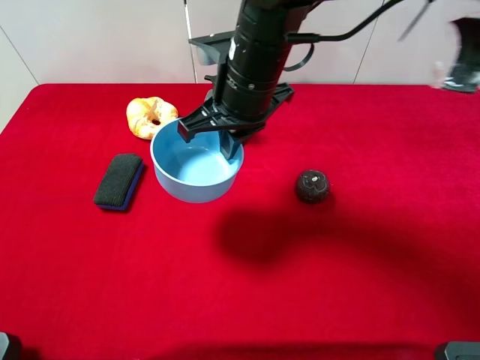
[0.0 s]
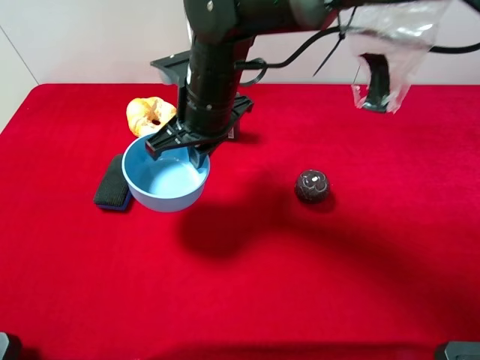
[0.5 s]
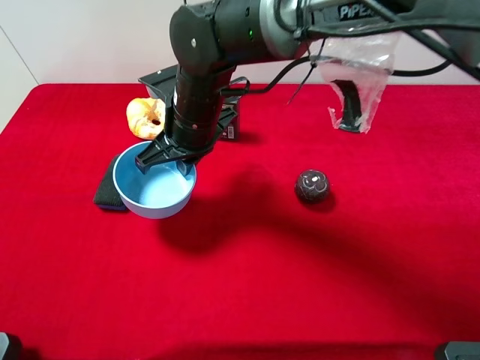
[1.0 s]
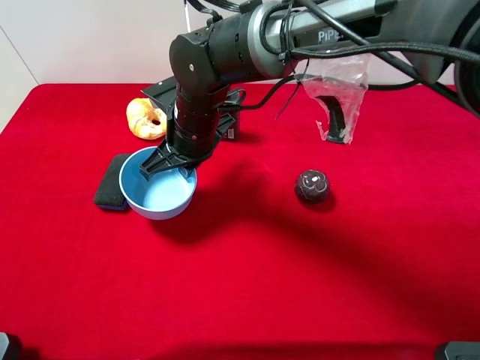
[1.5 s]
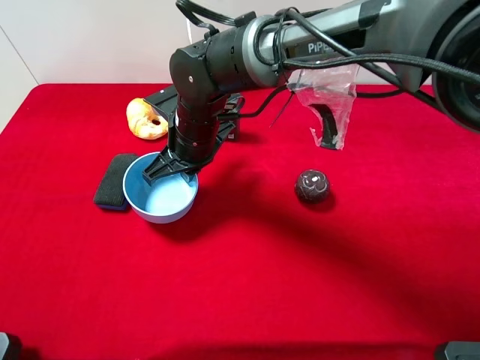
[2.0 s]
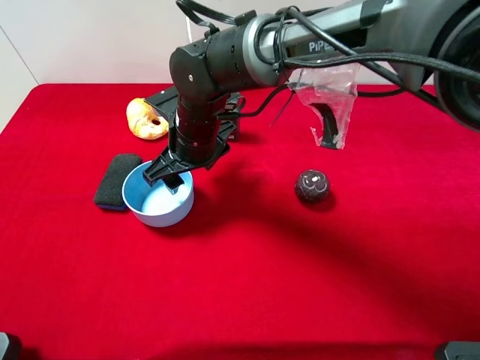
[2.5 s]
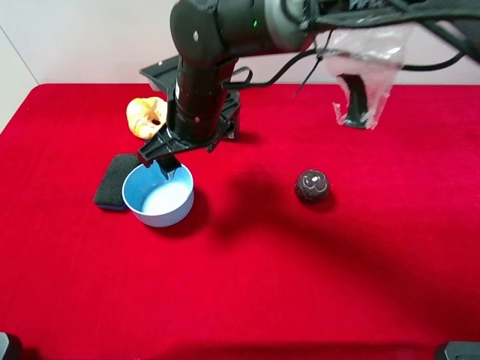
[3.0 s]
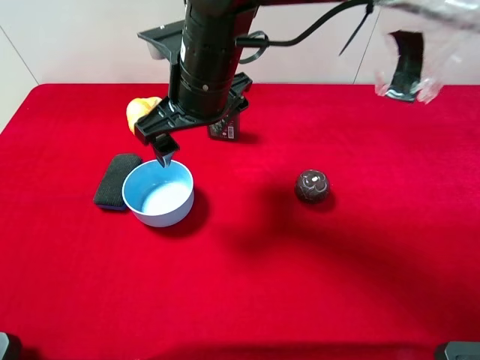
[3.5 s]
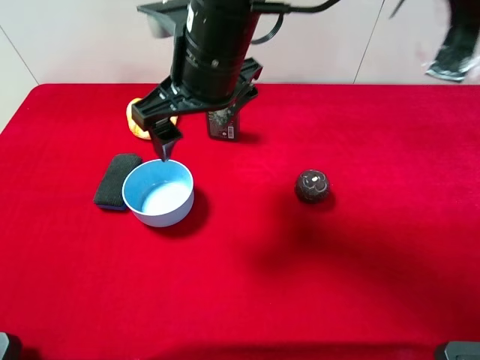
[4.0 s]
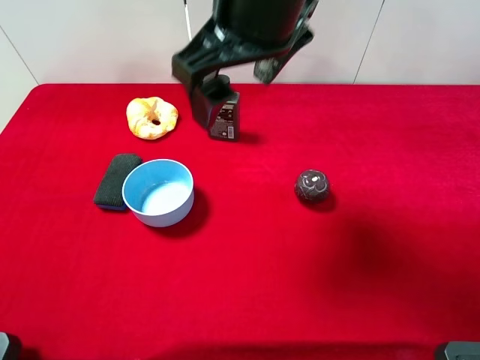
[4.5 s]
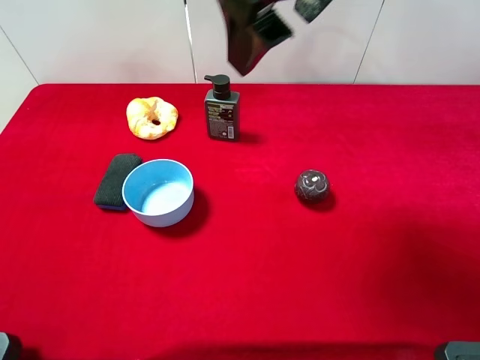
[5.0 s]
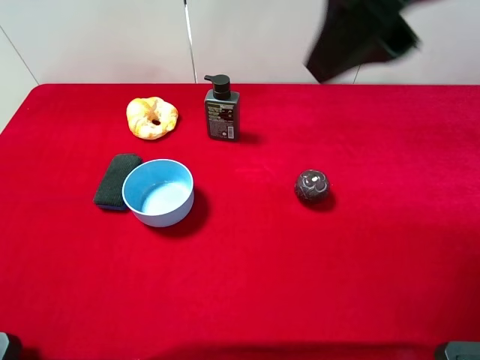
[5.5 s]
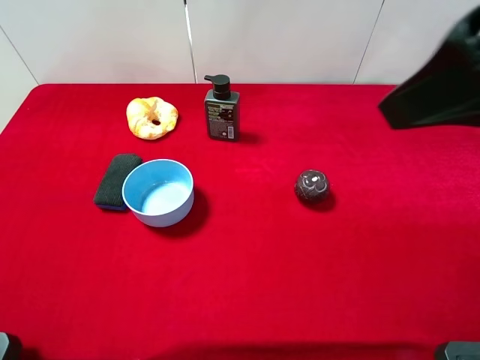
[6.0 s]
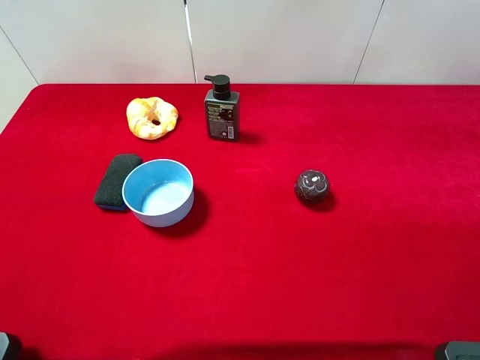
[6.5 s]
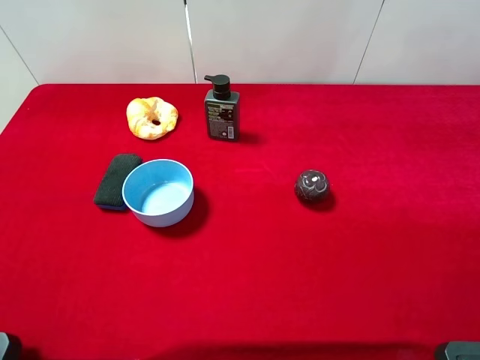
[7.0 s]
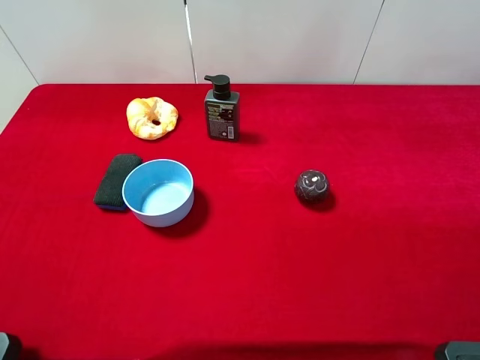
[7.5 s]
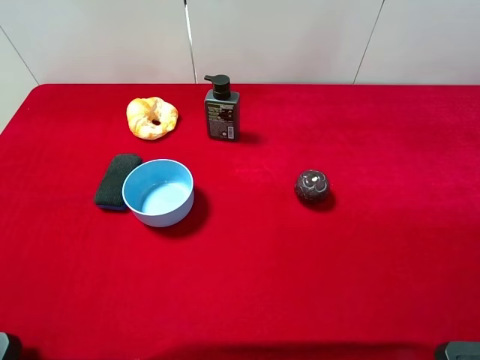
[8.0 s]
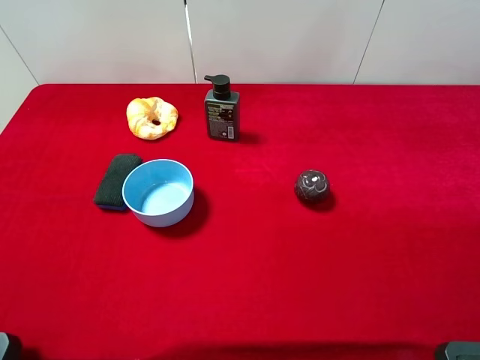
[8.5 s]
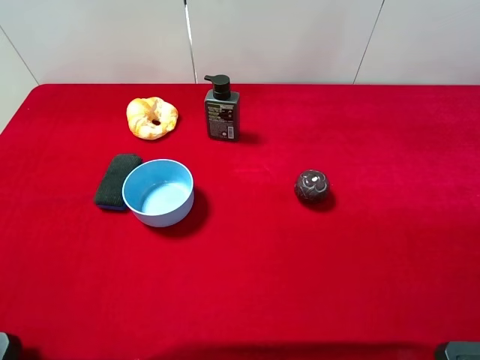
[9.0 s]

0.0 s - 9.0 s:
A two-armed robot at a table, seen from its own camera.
Task of the whole recording: the gripper move the object.
Step, 0.0 s - 3.0 s: Place the blue bowl on the table with the right gripper.
0.0 s - 2.0 s: The right gripper is displaced downward and to the left by about 10 cm.
2.0 s - 4.5 s: The right gripper goes approximately 20 cm upward, and opens its fingers.
4.5 s - 7.0 s: The right gripper travels to the right and backward by some 30 cm.

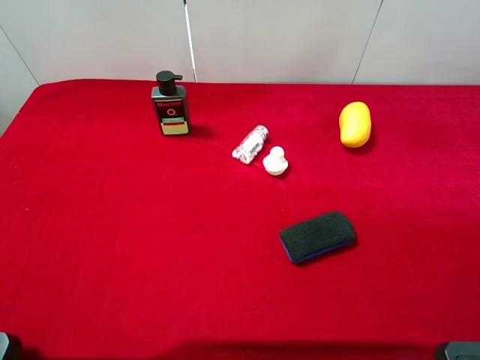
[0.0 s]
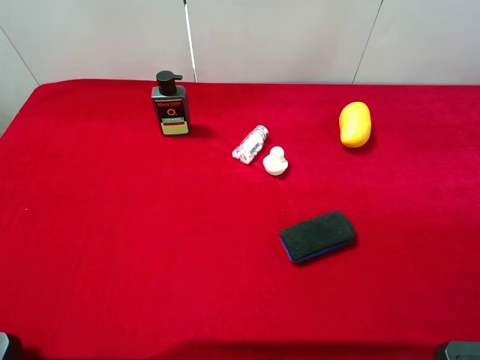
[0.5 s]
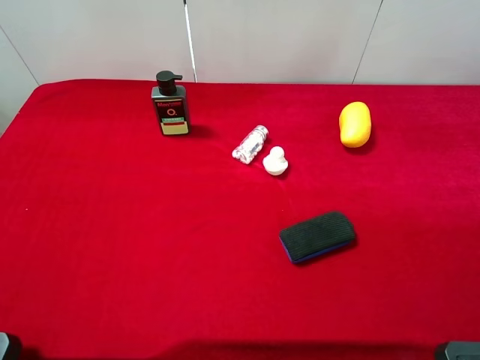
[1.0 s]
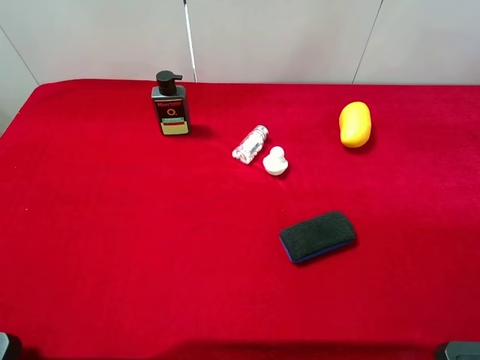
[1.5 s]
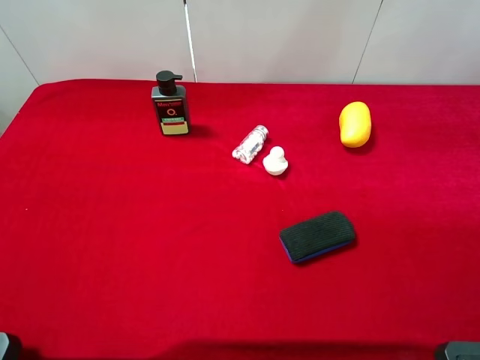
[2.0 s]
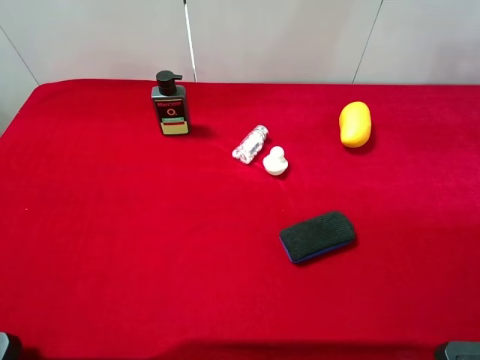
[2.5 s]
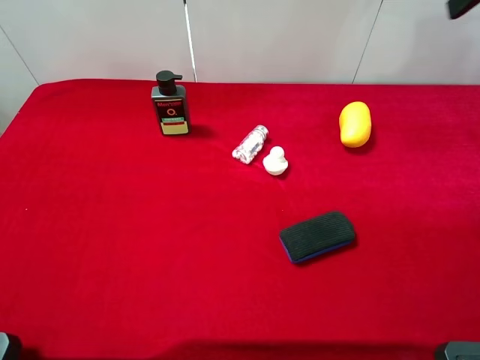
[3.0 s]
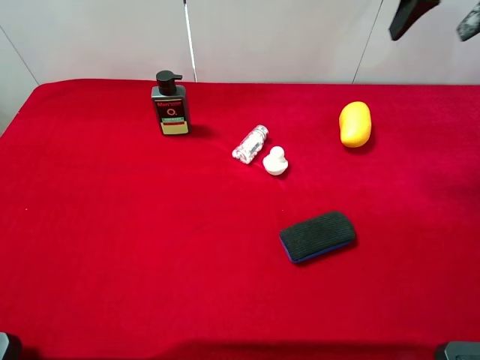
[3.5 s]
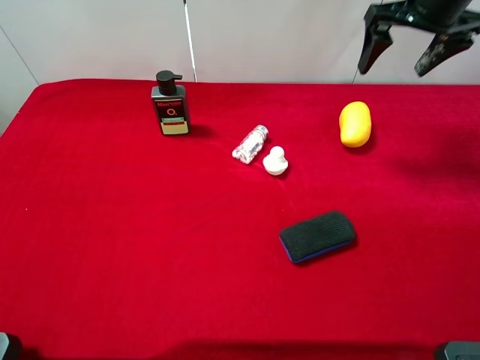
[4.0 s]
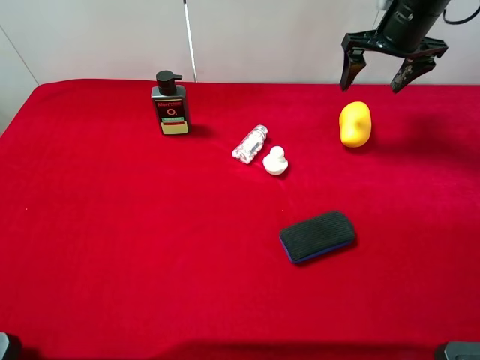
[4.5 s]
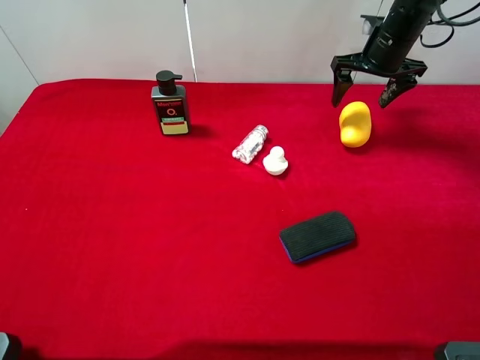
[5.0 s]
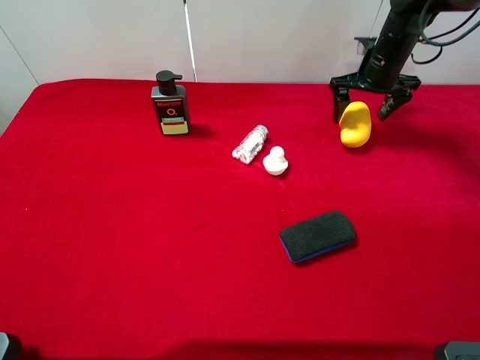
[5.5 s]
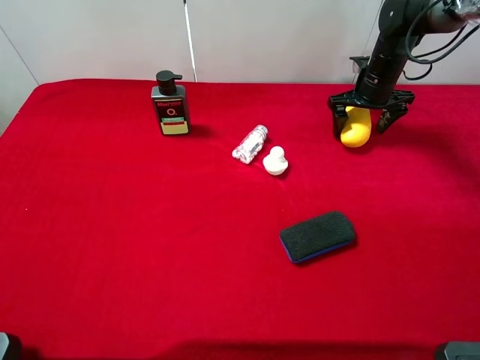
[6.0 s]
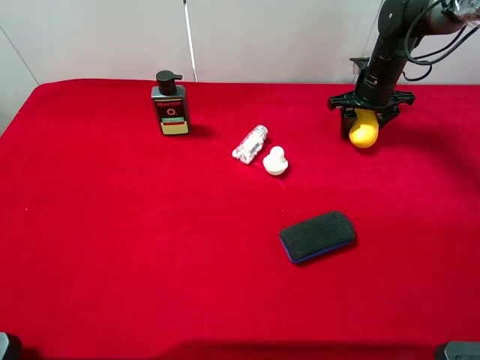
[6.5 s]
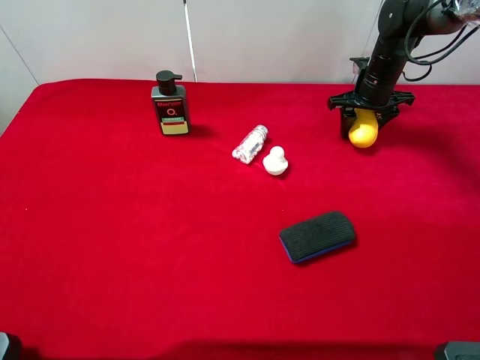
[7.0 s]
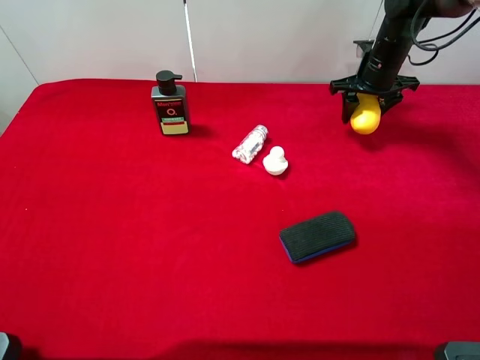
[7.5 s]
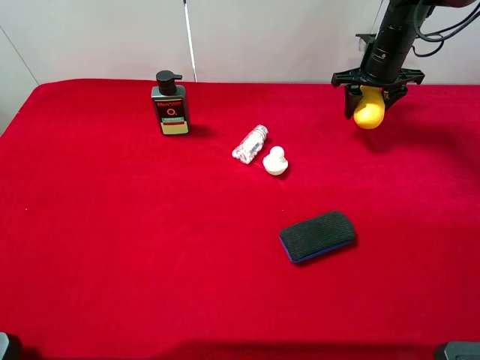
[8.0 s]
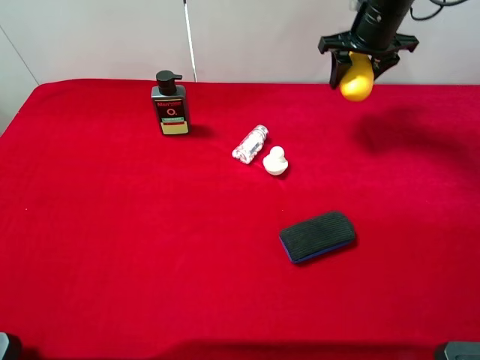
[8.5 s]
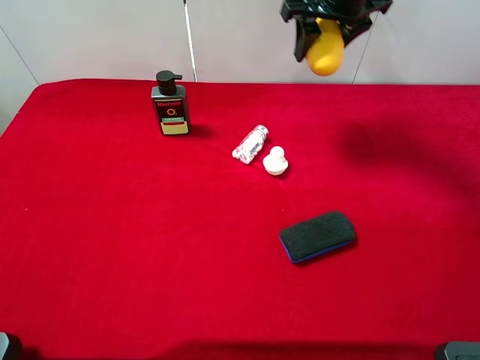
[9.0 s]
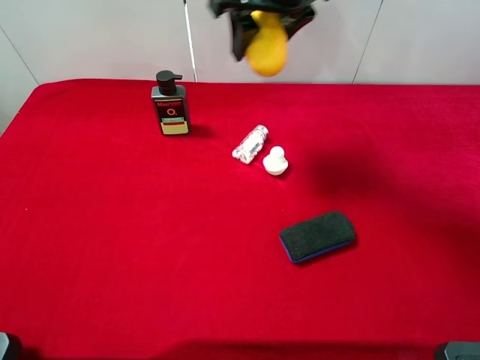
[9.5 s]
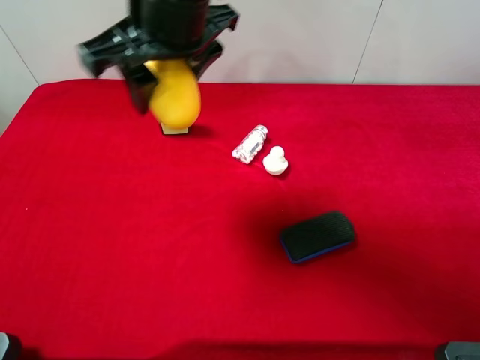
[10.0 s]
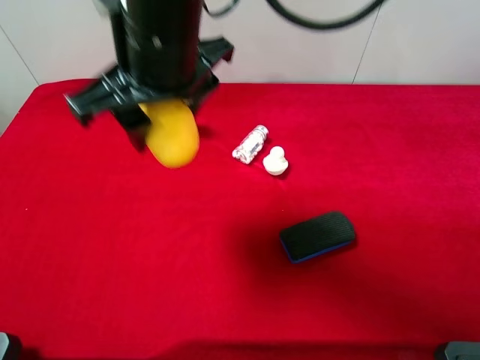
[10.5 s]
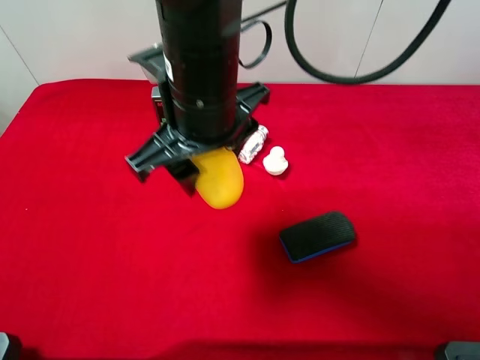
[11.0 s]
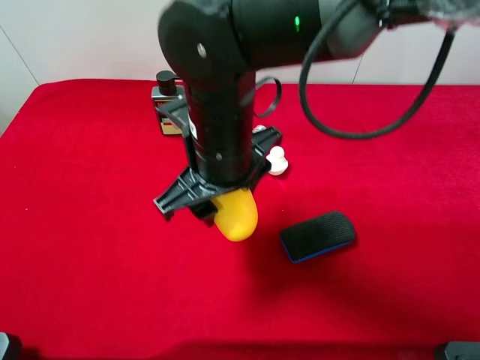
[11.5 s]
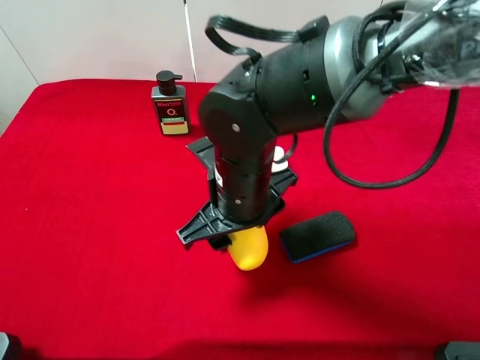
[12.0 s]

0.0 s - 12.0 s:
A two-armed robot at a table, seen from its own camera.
Task of the whole recording: the gripper move the object.
Step, 0.0 s - 6.5 s: Grasp the mango with the right gripper.
2.0 s - 4.0 s: The right gripper travels forward by about 25 cm.
4.0 s - 6.0 s: The right gripper is displaced downward and forward by some 20 cm.
6.0 s - 8.0 s: The right gripper closes up.
8.0 s - 10.0 s: The right gripper moves to the left, backward and upward, roughly 40 cm.
10.0 s - 12.0 s: The right gripper heads downward, covering approximately 15 cm.

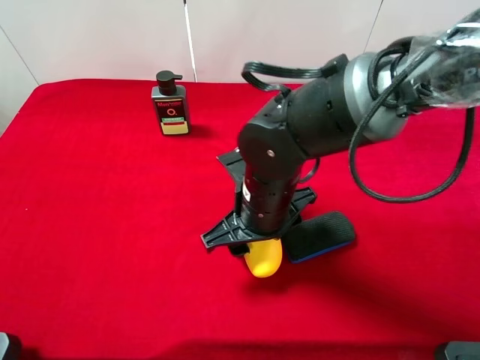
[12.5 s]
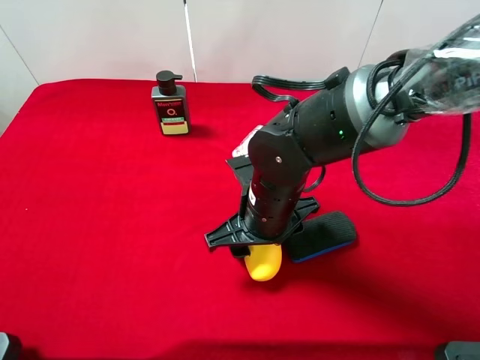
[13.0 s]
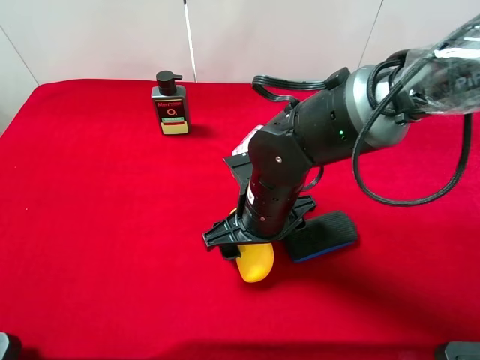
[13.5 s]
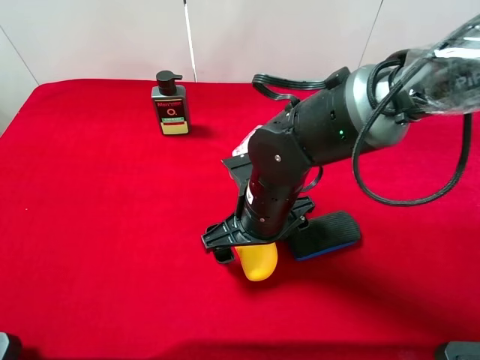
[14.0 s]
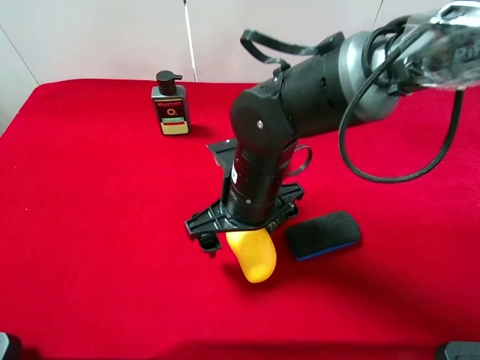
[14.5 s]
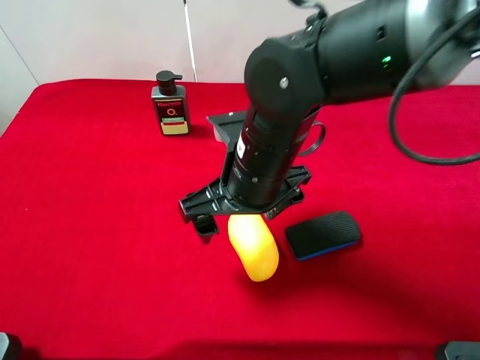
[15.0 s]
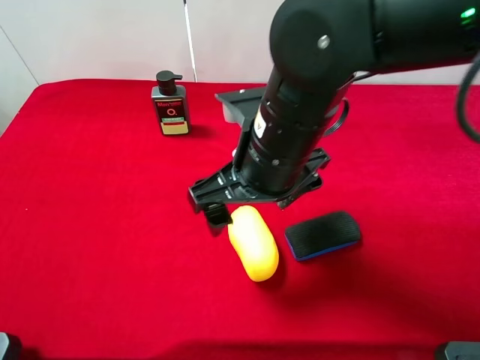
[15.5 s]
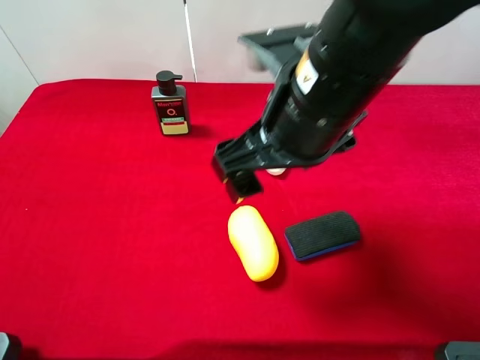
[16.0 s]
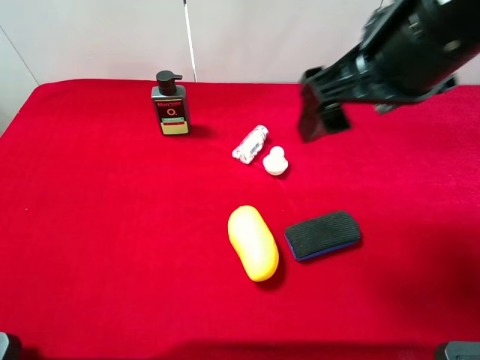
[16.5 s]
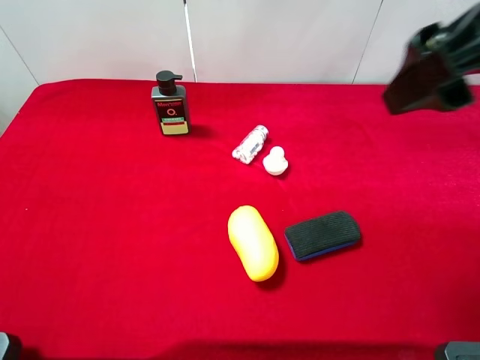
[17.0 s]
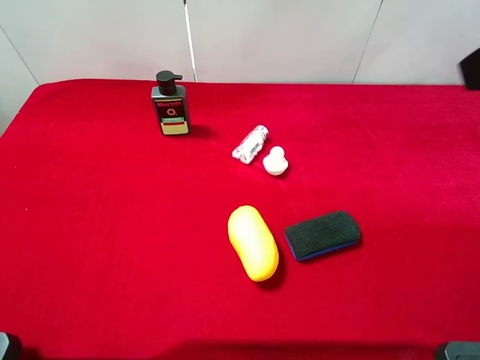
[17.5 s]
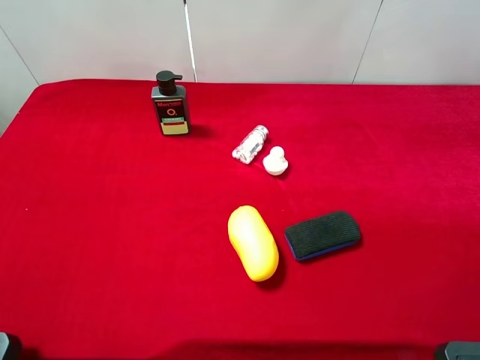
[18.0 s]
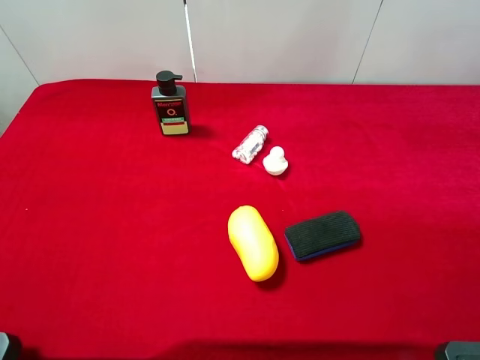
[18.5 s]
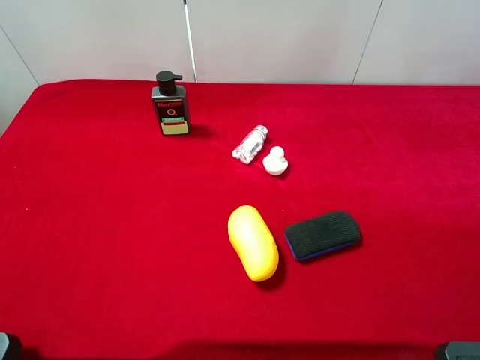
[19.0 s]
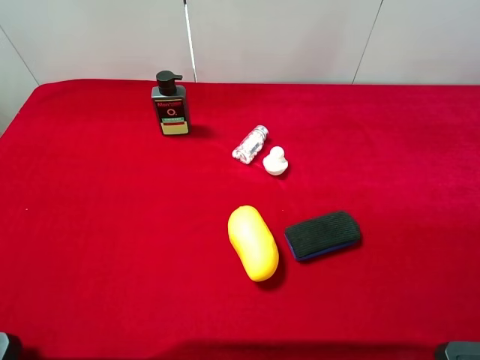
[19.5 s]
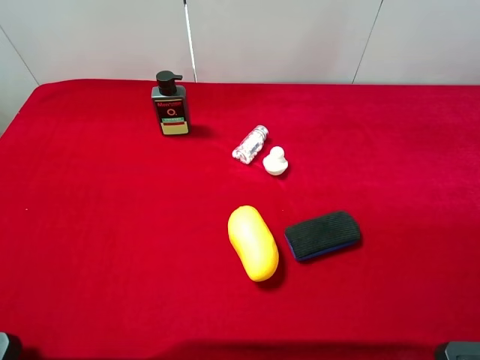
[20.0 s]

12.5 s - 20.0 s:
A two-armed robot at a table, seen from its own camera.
Task of the whole recording: the gripper move the object.
12.5 s - 14.5 s: The right gripper opens up.
14.5 s - 16.5 s: The right gripper moves upward and to the right, roughly 25 cm.
16.5 s - 18.0 s: The right gripper heads to the right, backward and upward, covering some 20 cm.
